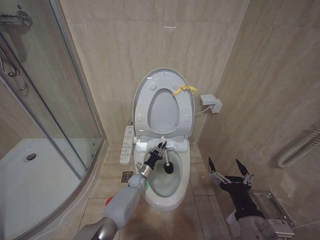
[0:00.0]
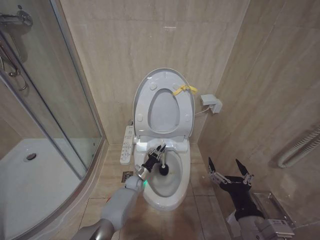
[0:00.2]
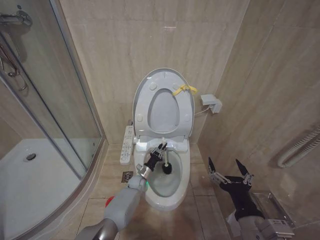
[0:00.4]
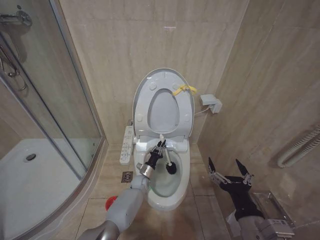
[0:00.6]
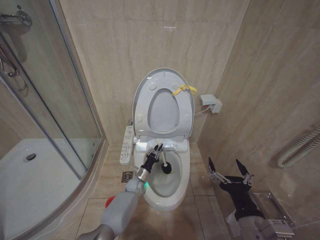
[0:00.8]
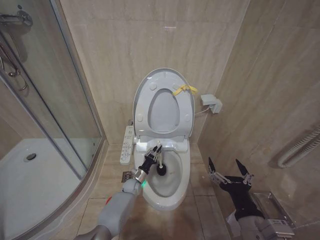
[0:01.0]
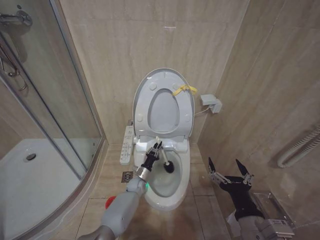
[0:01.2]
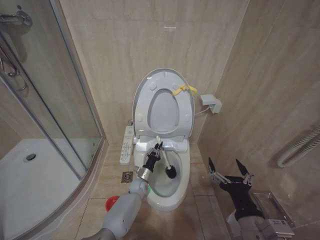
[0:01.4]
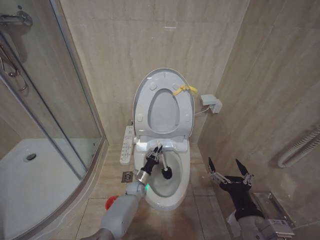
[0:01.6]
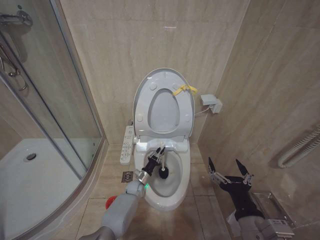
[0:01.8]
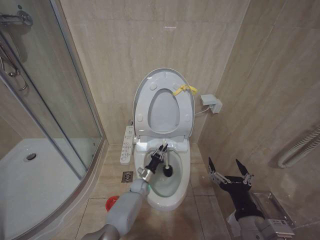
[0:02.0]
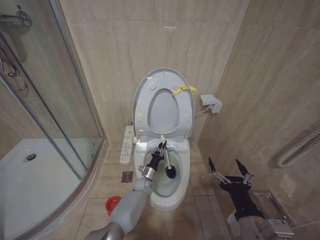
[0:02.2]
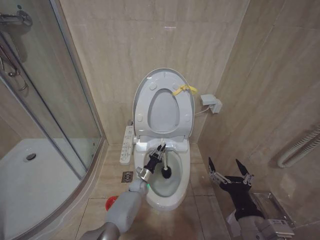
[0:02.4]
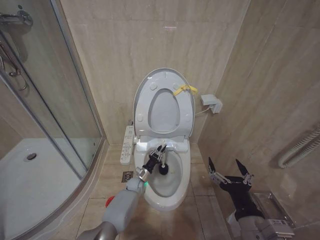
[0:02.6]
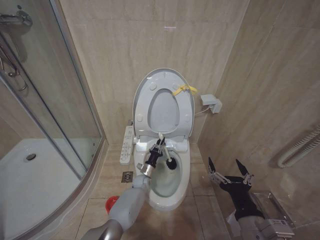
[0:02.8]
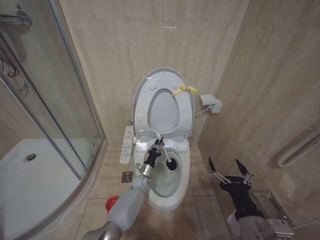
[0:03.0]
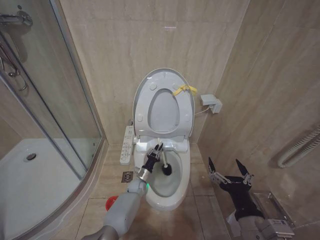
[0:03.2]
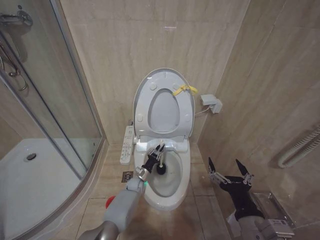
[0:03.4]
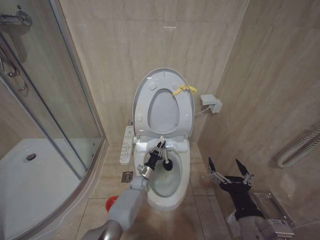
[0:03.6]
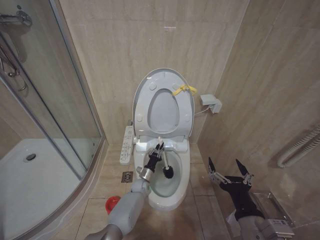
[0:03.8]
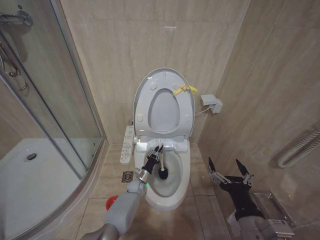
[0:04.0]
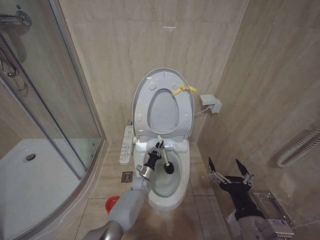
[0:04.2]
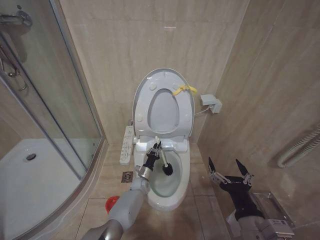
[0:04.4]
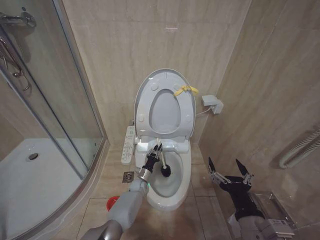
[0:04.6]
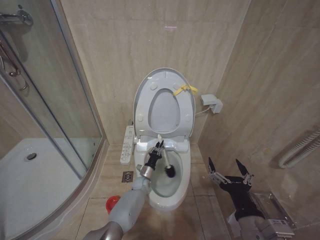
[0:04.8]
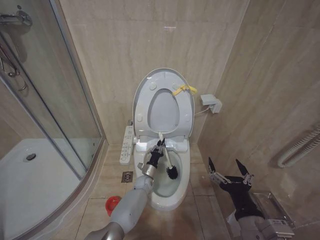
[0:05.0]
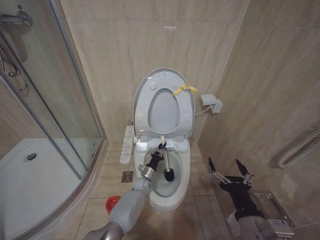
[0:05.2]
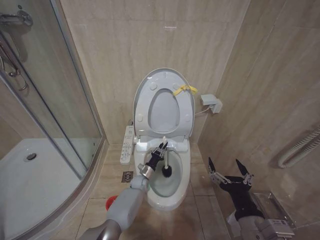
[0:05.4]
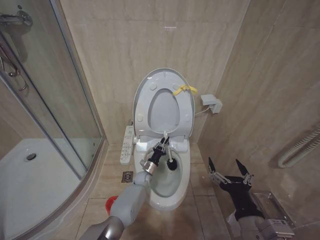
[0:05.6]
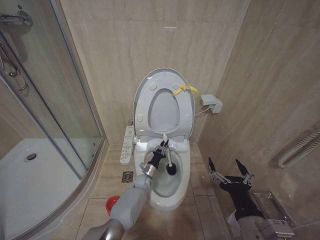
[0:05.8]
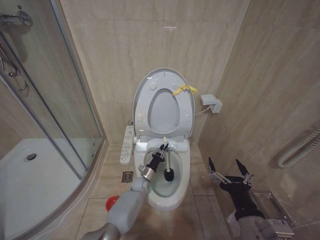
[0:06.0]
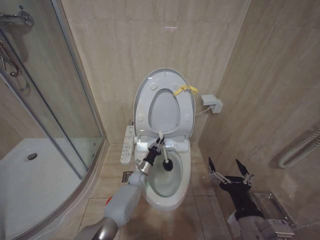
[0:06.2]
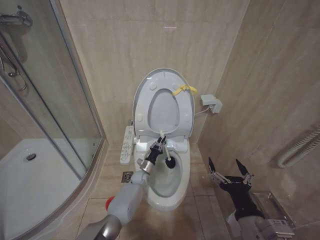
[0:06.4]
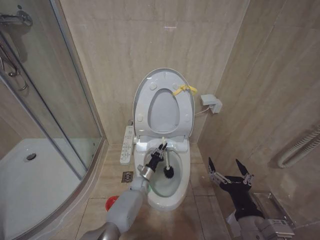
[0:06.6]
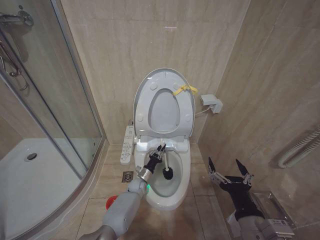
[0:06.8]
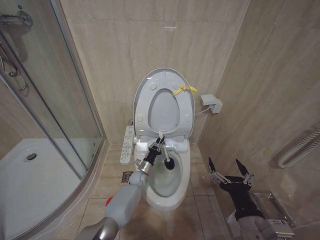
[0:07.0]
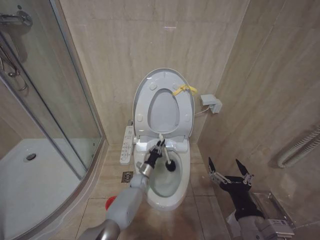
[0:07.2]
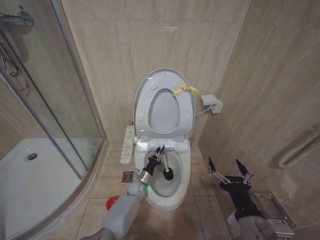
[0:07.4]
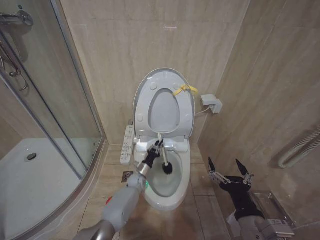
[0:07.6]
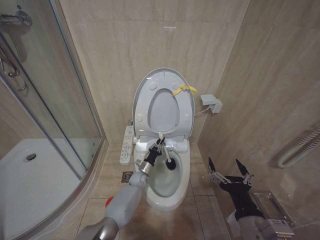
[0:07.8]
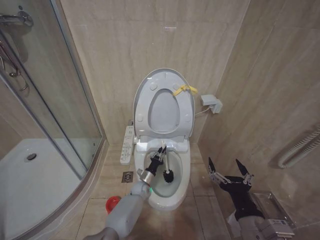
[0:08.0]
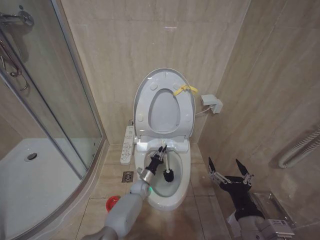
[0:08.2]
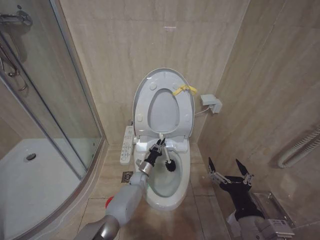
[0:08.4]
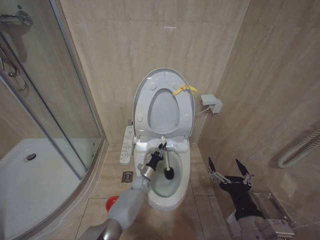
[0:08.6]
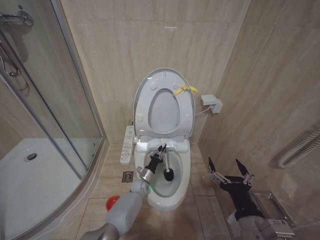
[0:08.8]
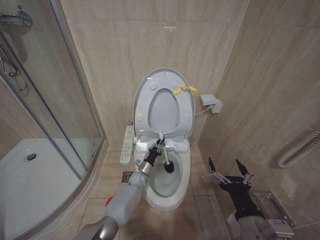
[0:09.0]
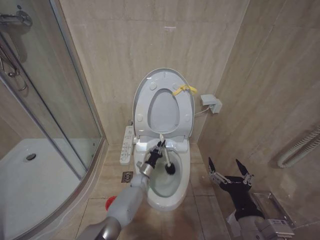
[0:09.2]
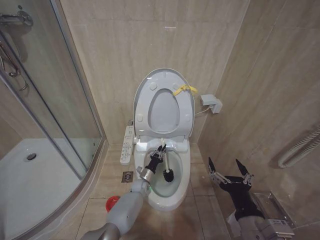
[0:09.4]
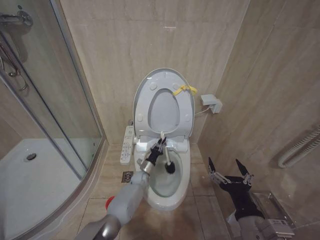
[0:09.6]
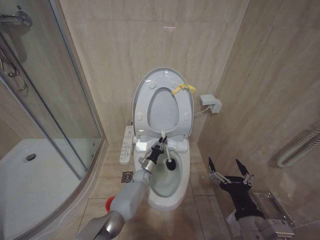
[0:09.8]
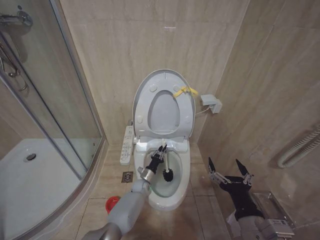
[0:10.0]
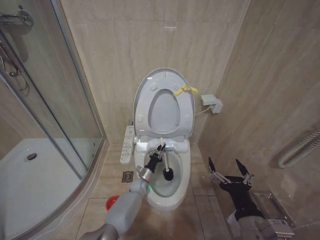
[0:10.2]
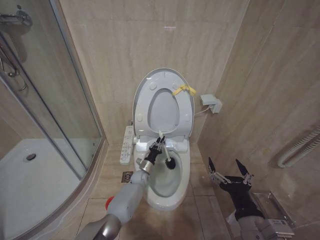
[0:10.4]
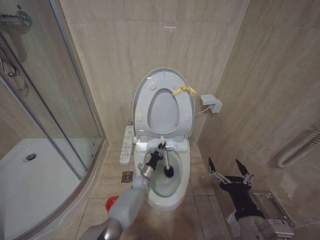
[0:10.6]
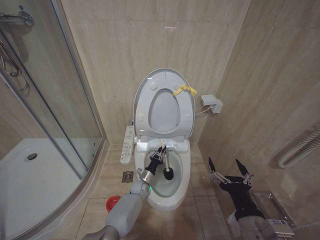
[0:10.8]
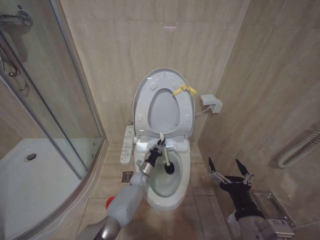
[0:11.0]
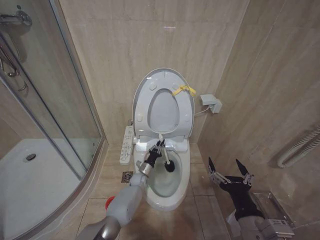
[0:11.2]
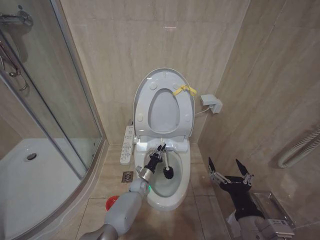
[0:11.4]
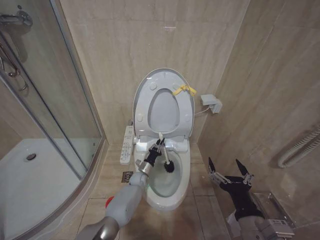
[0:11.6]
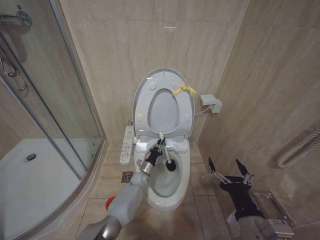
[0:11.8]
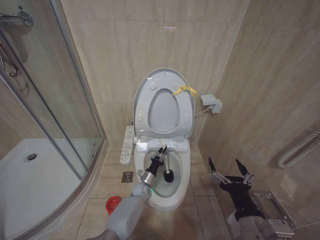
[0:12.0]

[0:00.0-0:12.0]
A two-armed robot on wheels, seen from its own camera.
Task of the whole recording: Open the toilet lid, clean the toilet bowl with a toilet brush, close the toilet lid, and flush.
0:00.0 to 0:03.0: There are only small adjustments of the grippers.
0:04.4 to 0:07.6: The grippers move only a little.
0:10.4 to 0:12.0: There are only small adjustments of the grippers.

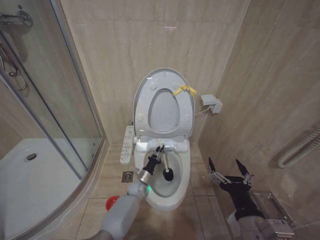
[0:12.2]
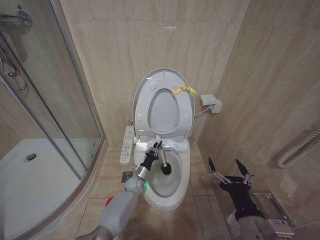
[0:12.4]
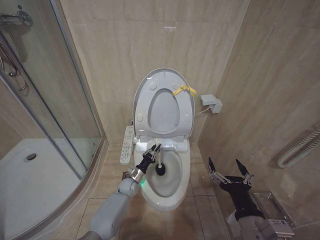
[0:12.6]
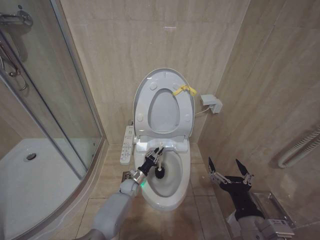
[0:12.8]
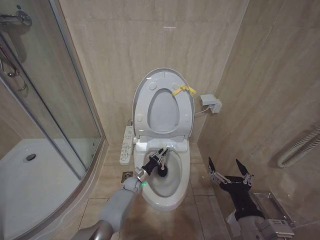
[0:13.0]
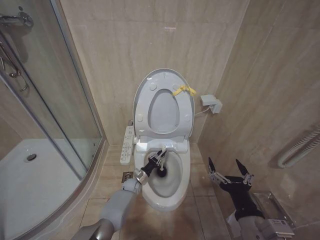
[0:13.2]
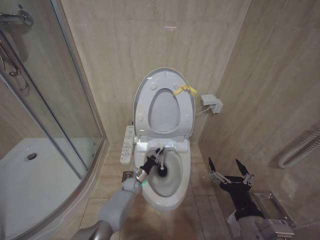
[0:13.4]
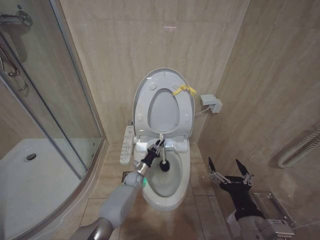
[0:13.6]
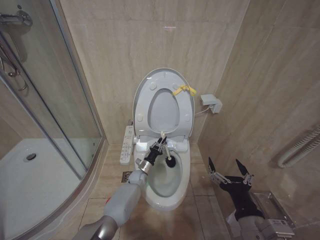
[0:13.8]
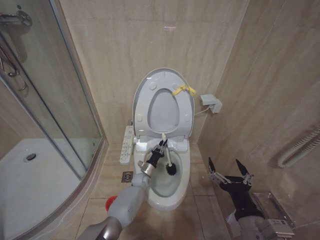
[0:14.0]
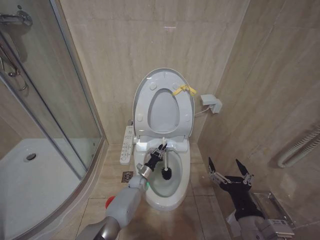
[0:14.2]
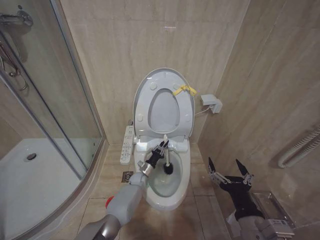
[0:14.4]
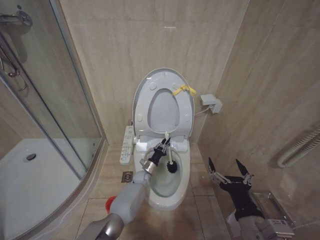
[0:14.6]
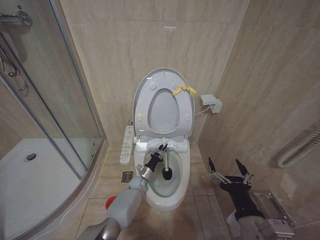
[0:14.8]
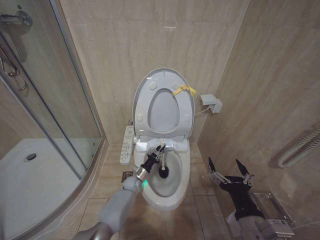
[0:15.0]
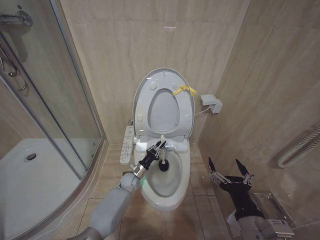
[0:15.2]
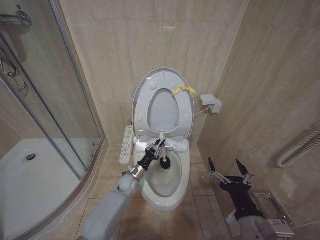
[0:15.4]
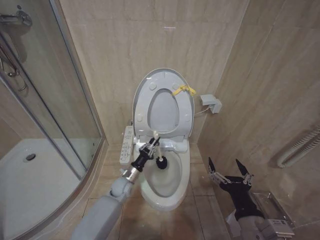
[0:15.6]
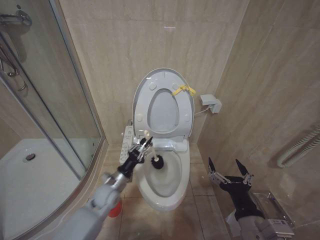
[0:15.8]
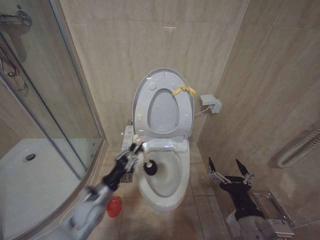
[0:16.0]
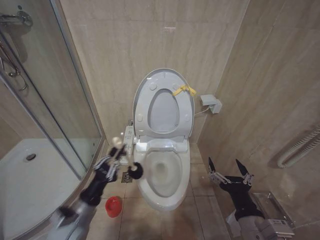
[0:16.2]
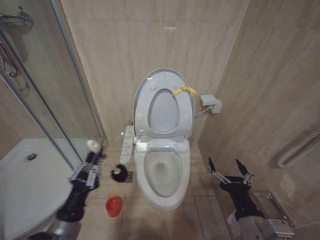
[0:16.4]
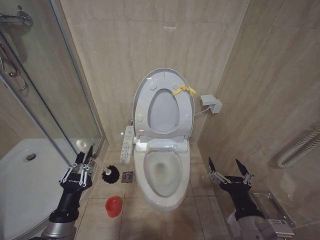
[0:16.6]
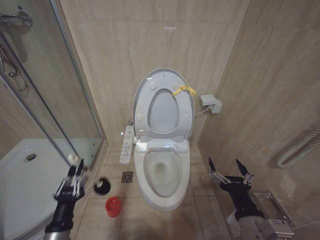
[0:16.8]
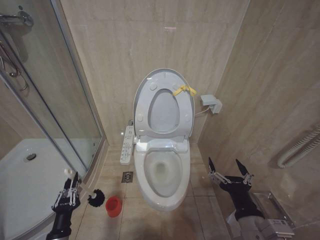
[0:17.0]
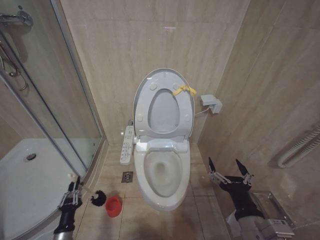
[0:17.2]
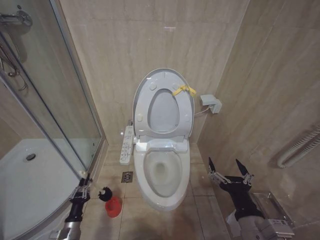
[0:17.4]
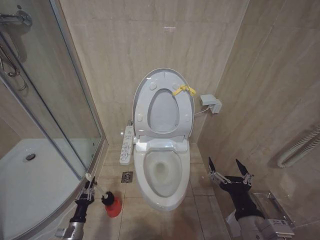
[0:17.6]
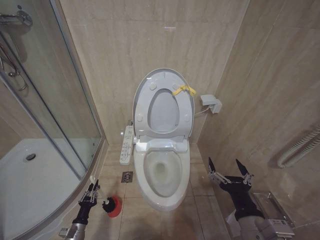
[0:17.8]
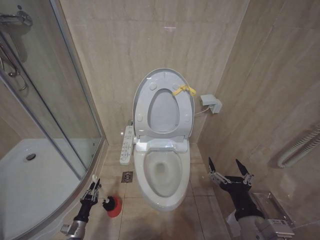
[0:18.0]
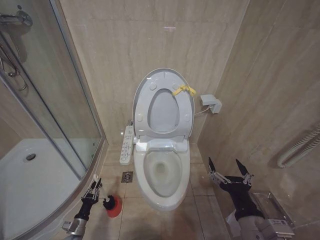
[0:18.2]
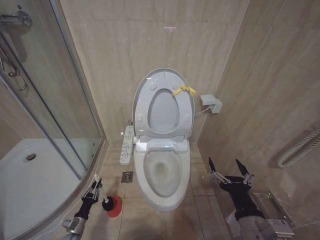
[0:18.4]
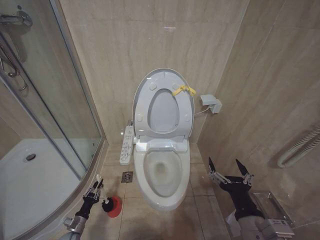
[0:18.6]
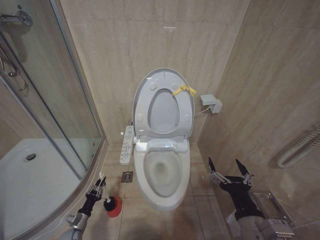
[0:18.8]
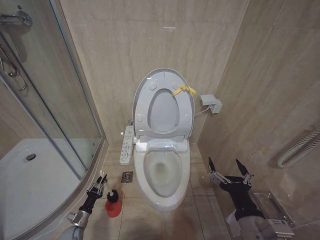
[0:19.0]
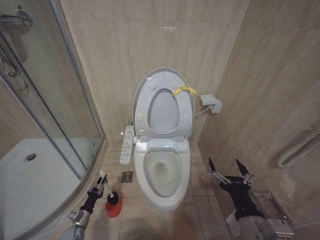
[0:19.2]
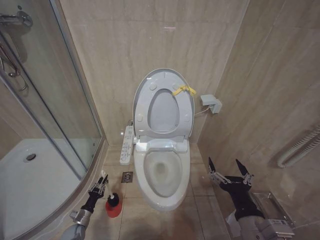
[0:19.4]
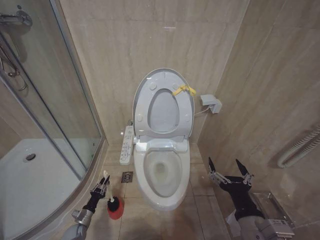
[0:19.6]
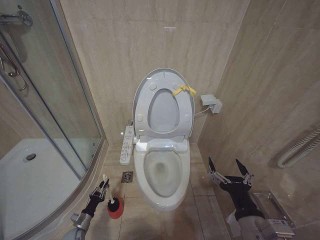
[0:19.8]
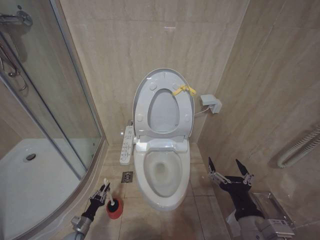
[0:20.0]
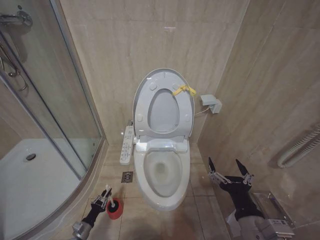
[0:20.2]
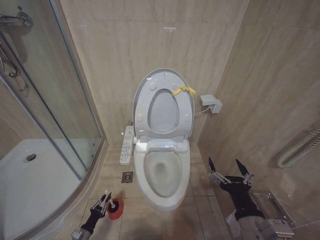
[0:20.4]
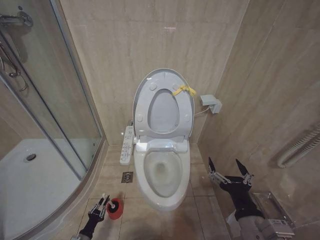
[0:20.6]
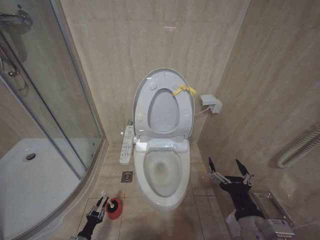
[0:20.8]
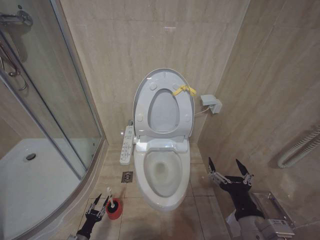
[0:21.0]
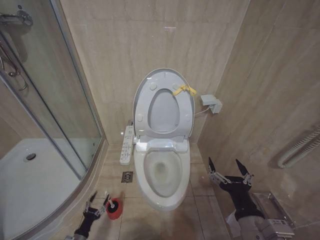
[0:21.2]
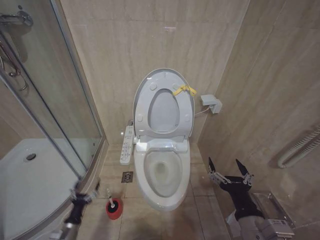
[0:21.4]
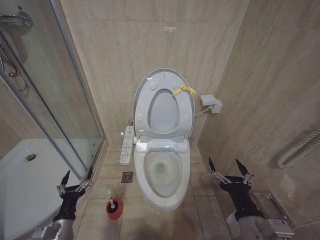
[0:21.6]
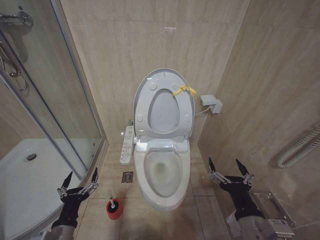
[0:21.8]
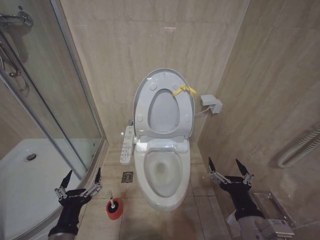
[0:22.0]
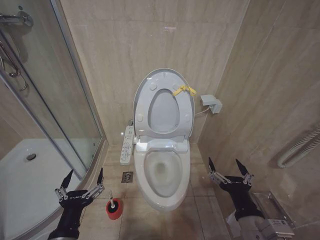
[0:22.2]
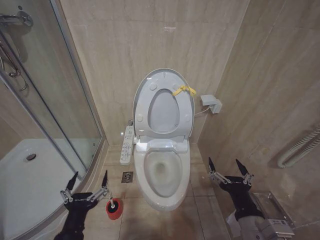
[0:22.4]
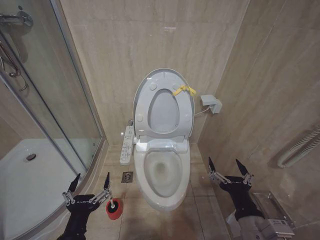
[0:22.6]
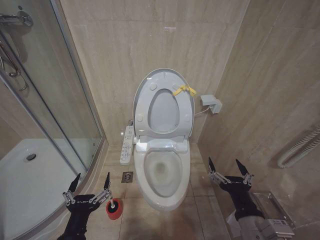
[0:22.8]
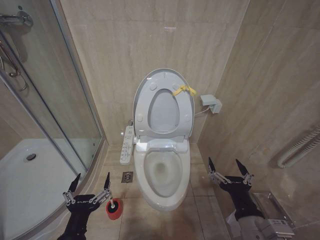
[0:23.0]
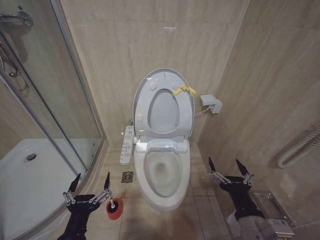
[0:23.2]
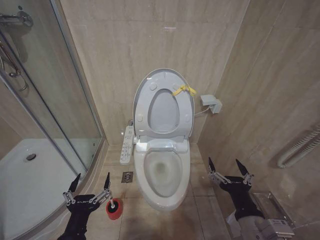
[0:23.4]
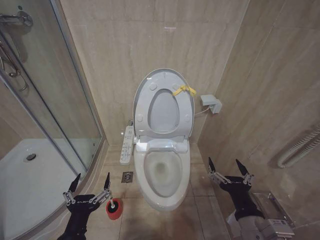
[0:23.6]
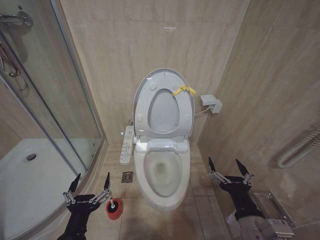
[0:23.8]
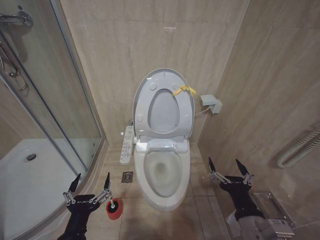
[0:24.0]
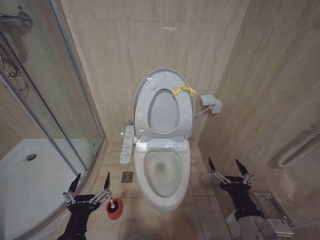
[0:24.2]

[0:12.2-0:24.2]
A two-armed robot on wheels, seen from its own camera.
Task of the whole recording: Open the toilet lid, clean the toilet bowl with a toilet brush, close the toilet lid, and flush.
0:12.2 to 0:13.8: The left gripper changes place by some 5 cm.
0:13.8 to 0:15.2: The grippers make only small movements.
0:15.2 to 0:16.6: The left gripper moves backward, upward and to the left, roughly 40 cm.
0:16.6 to 0:18.2: The left gripper shifts roughly 30 cm downward.
0:18.2 to 0:19.8: There are only small adjustments of the grippers.
0:19.8 to 0:21.2: The left gripper moves backward, some 10 cm, and opens up.
0:21.2 to 0:22.6: The left gripper shifts roughly 40 cm upward and to the right, and opens up.
0:22.6 to 0:24.2: Both grippers stay about where they are.
